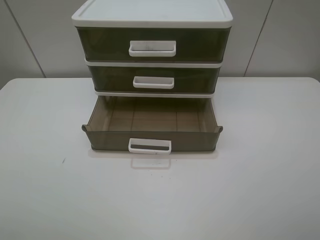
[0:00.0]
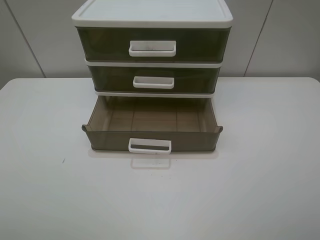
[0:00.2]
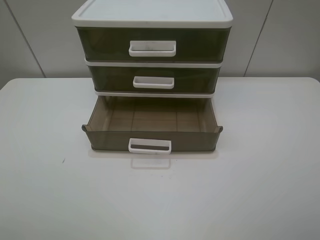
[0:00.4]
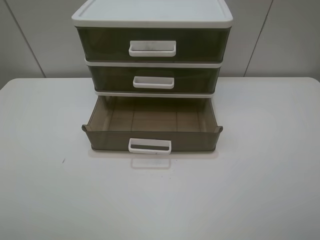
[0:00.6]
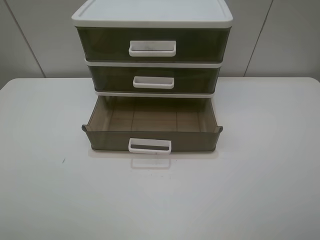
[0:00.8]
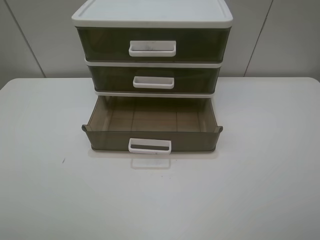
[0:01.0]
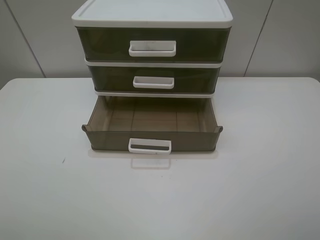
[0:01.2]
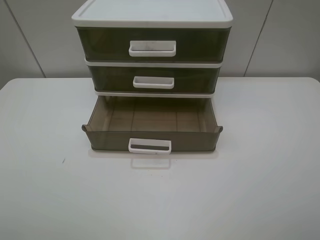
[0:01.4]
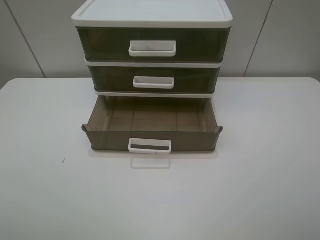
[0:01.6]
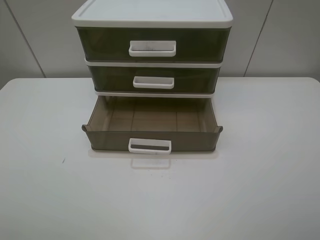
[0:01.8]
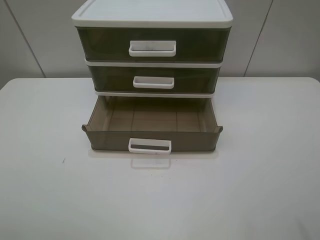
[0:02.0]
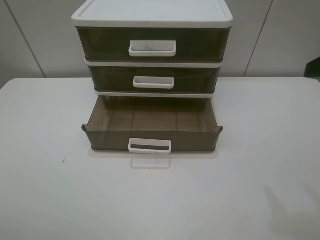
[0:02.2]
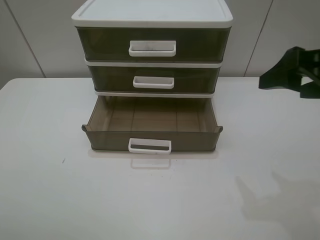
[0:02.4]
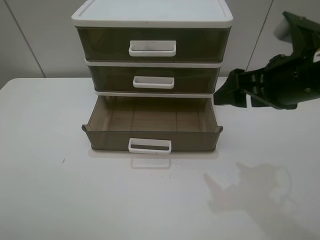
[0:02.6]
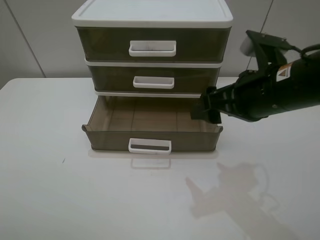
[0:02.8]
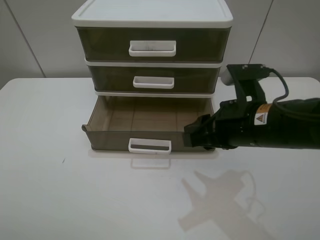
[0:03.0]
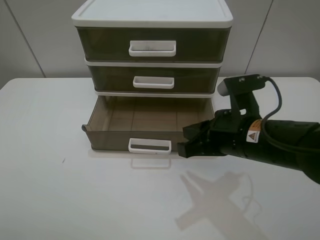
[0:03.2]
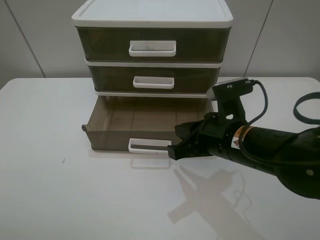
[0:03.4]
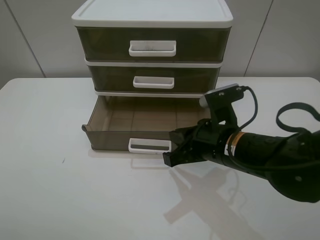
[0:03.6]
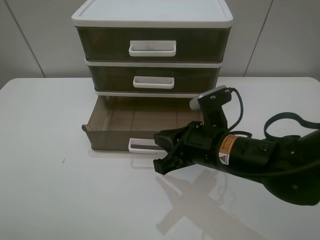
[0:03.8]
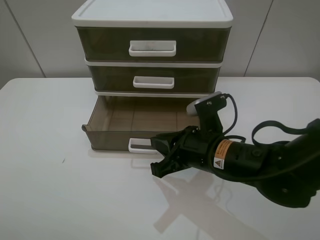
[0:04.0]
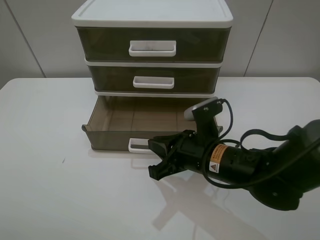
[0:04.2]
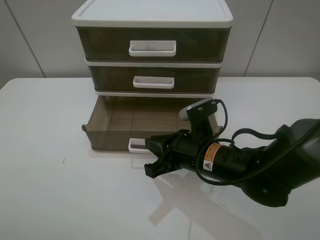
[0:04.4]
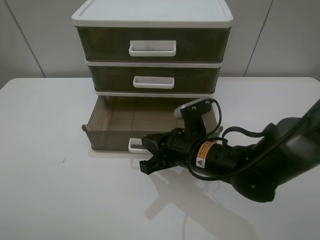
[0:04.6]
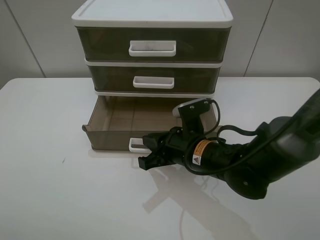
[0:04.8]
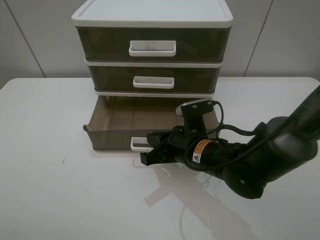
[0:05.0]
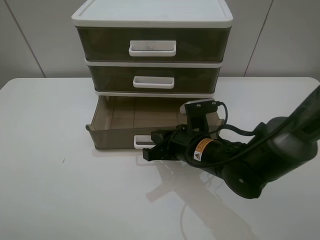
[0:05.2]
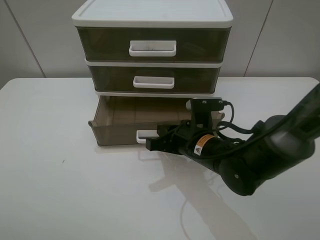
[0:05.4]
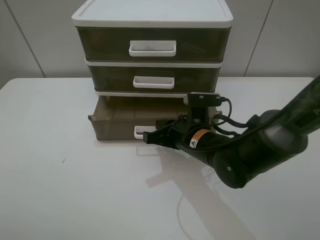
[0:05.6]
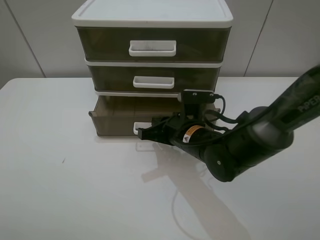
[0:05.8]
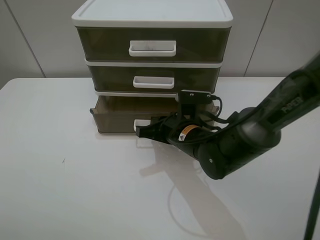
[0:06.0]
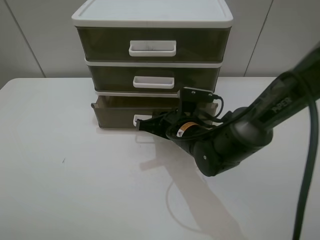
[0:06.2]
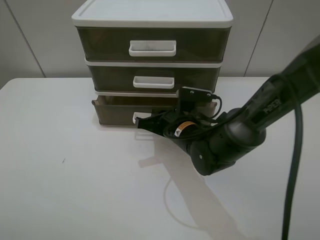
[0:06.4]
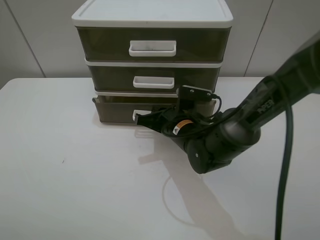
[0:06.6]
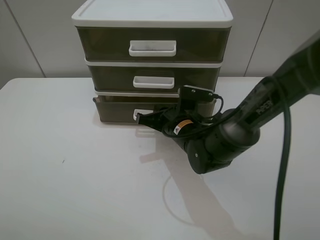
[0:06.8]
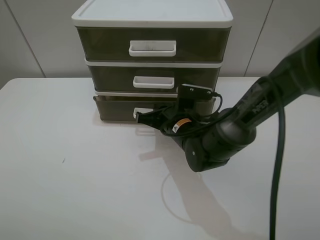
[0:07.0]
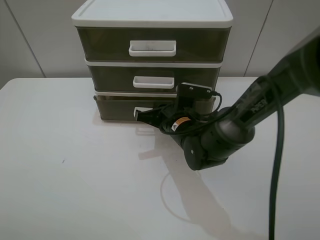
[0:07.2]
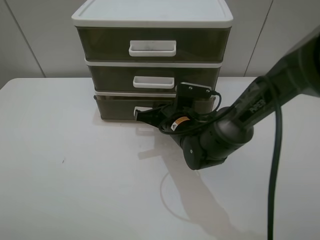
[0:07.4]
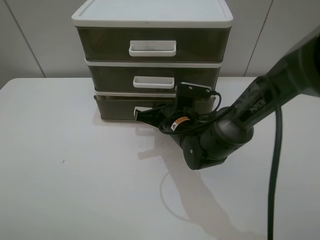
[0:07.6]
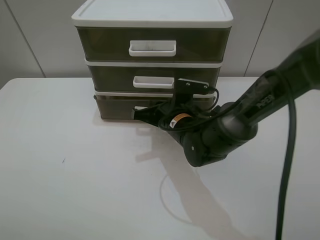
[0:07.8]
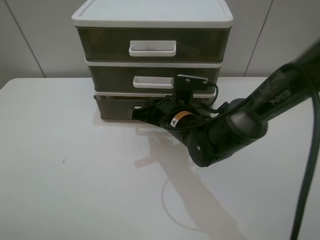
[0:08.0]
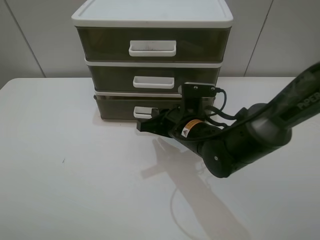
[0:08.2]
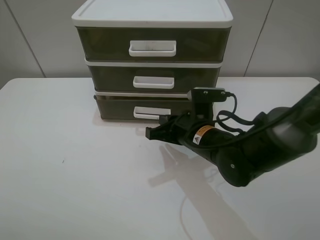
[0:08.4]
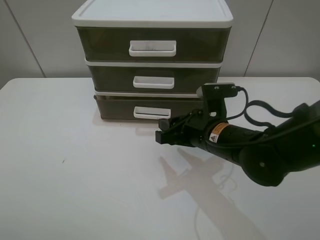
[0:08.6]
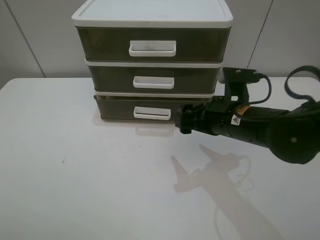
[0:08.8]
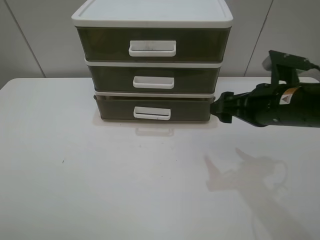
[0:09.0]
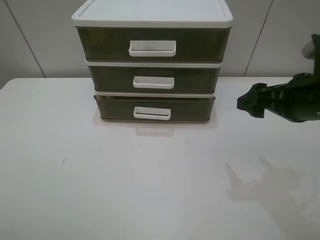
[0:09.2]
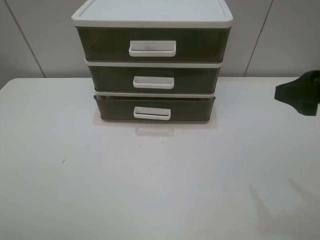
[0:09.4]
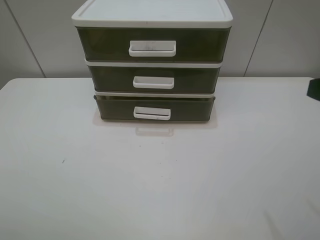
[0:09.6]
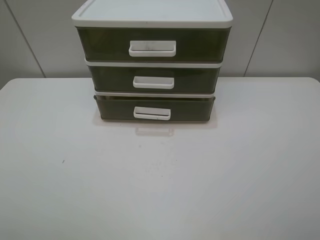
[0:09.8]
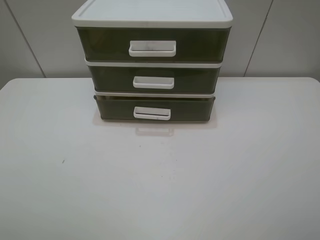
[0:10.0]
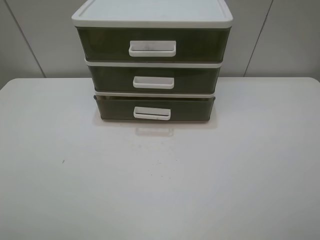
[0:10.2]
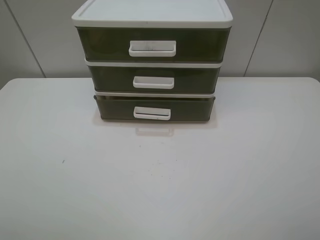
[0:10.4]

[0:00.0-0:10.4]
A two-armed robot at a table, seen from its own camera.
Task of the whole recording: close the bottom drawer.
Step, 0:00.0 to 0:05.0: Use the right gripper to contact the bottom layer of the storage cabinet.
Step, 0:05.2 to 0:07.6: Push the bottom drawer closed.
0:00.0 to 0:01.4: Both grippers stay put.
0:01.4 to 0:03.0: The right gripper travels forward, to the left and downward by about 25 cm, and closes its fingers.
0:03.0 to 0:04.4: The right gripper travels downward and to the left by roughly 10 cm.
0:04.4 to 0:06.0: The right gripper heads forward, covering about 5 cm.
0:06.0 to 0:07.4: The grippers move only a little.
0:07.4 to 0:09.0: The right gripper travels to the right, upward and backward by approximately 20 cm, and opens up.
0:09.0 to 0:10.4: The right gripper heads backward and upward, covering approximately 30 cm.

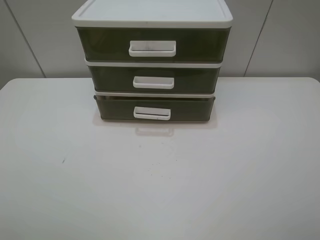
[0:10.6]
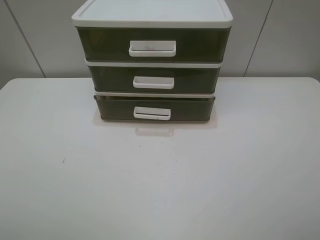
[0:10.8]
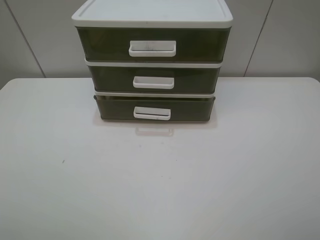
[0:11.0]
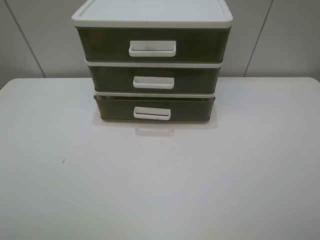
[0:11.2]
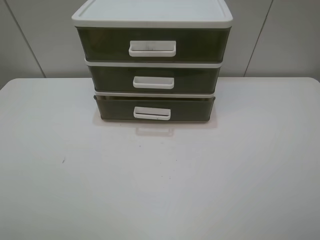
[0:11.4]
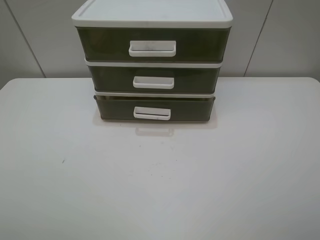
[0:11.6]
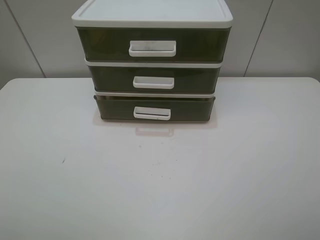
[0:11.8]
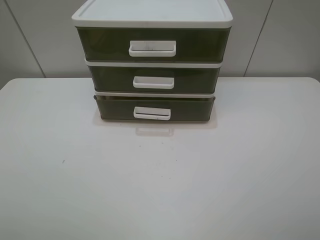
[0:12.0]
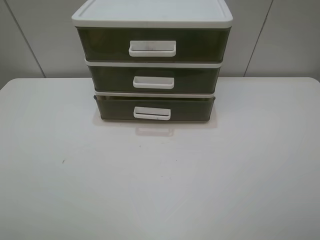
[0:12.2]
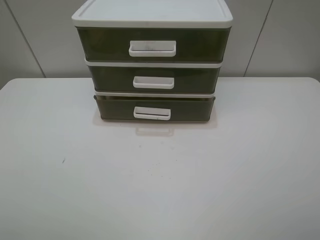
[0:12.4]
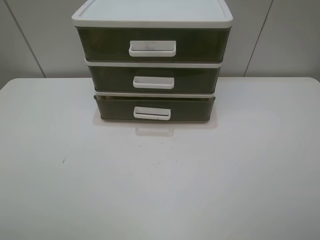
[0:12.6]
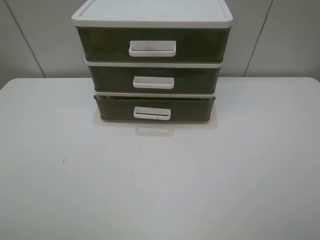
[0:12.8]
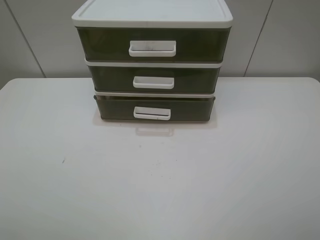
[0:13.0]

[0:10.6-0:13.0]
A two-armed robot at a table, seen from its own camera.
Task of the whole recording: close the bottom drawer.
0:11.8 to 0:13.0: Both grippers stay about where they are.
